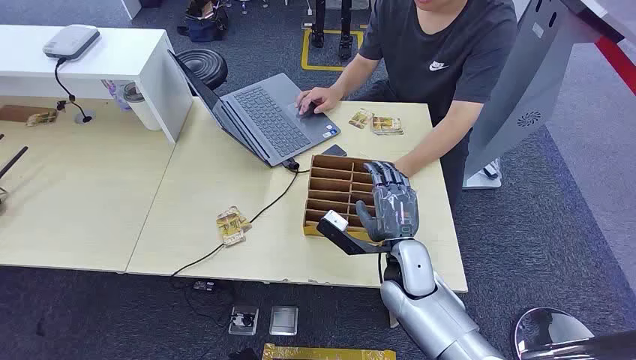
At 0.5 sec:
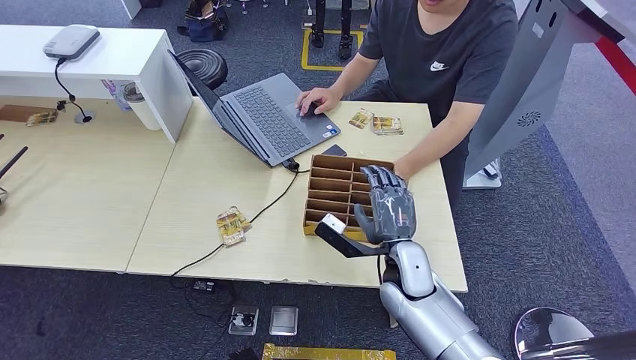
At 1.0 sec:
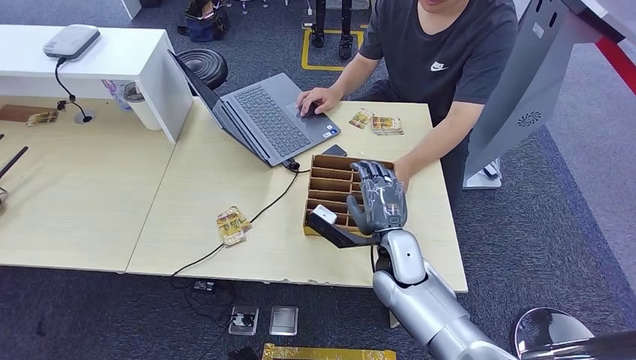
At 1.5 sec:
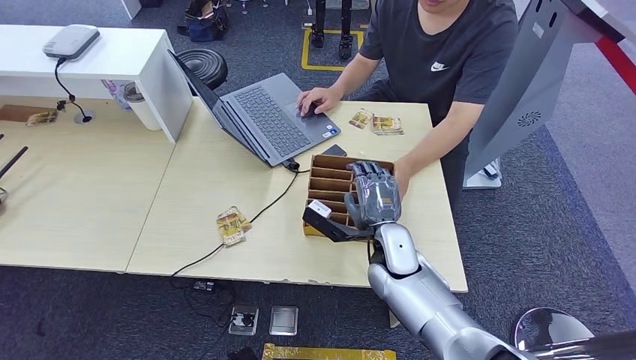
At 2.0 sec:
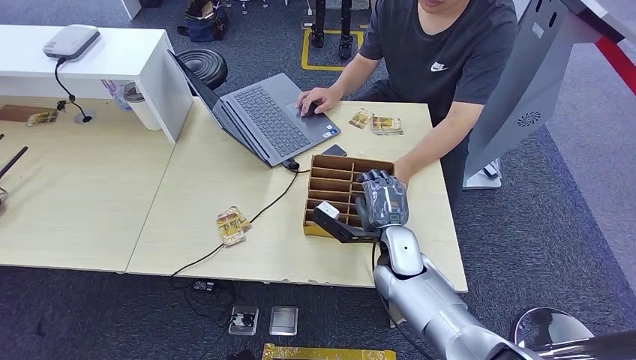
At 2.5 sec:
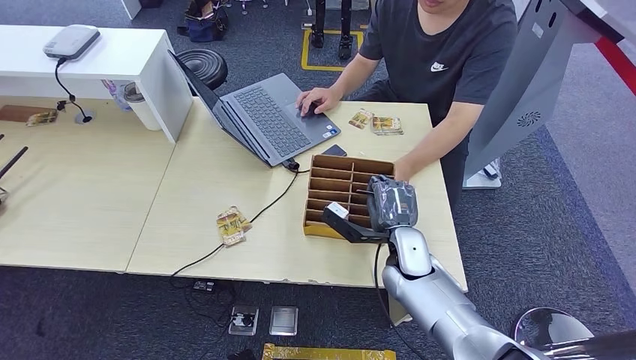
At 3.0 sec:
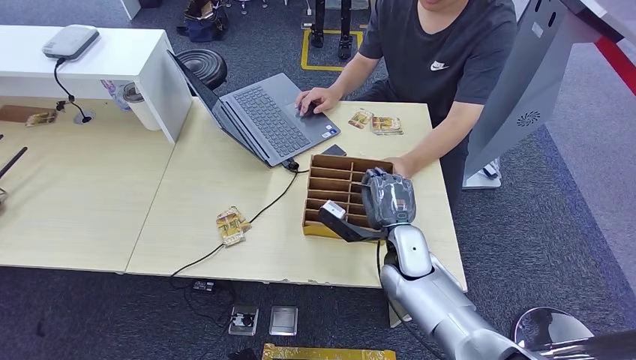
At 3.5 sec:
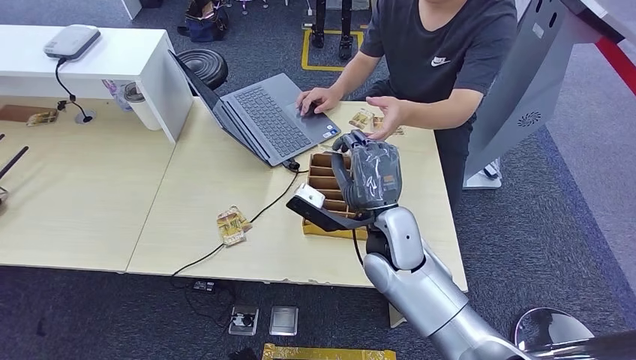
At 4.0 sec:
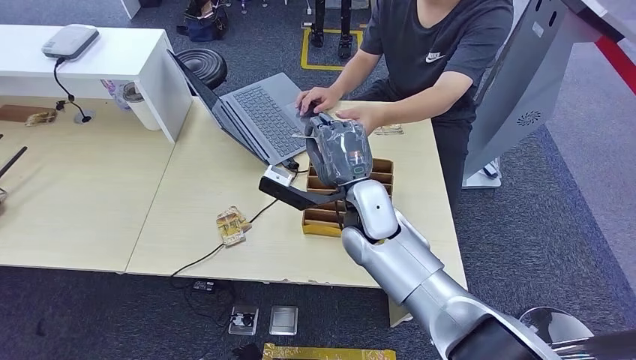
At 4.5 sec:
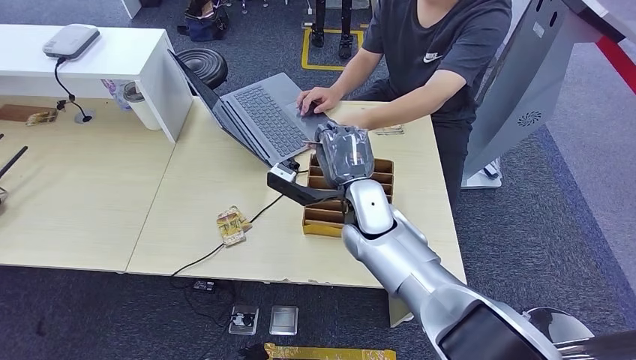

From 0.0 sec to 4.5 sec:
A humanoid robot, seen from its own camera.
Step, from 0.0 sec to 2.5 sec: Pick up the key card from the card box.
Step, from 3.0 sec to 4.5 sec: Hand the key card to the target.
From 2.0 sec to 4.5 sec: The right hand moves upward and to the left, some 10 cm.

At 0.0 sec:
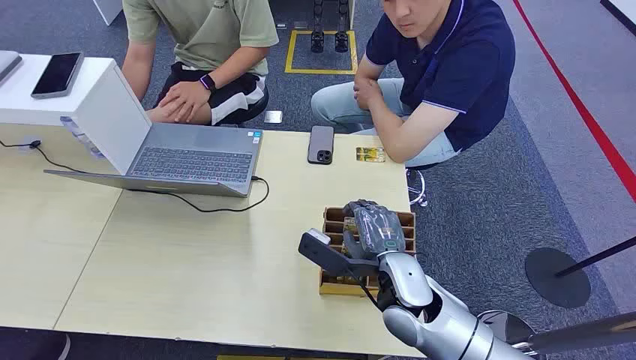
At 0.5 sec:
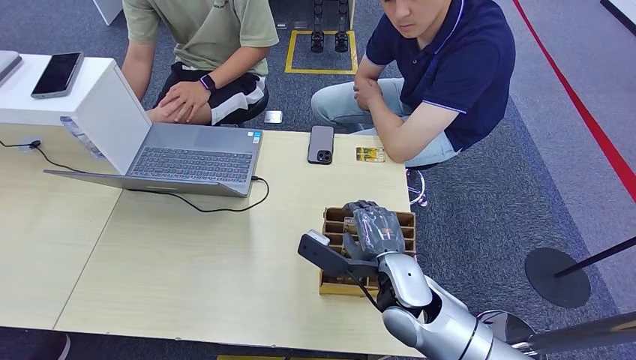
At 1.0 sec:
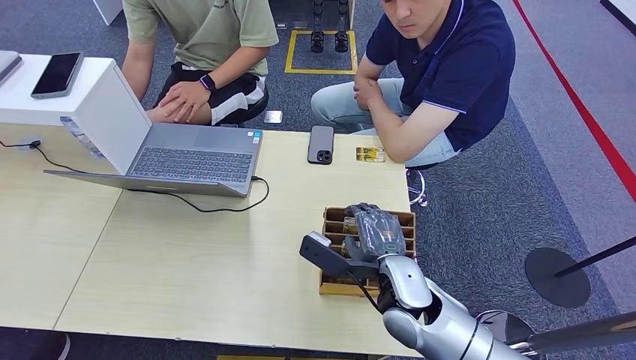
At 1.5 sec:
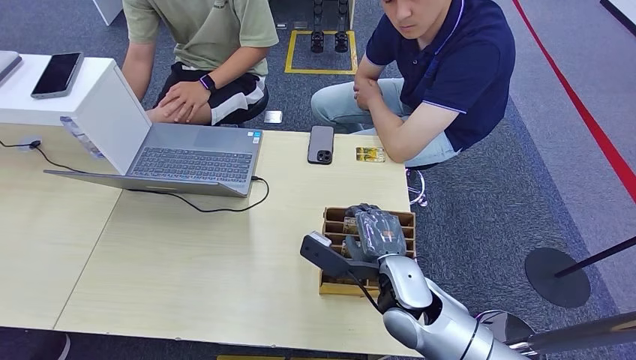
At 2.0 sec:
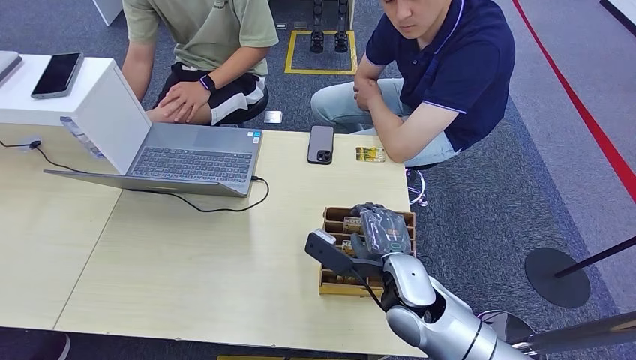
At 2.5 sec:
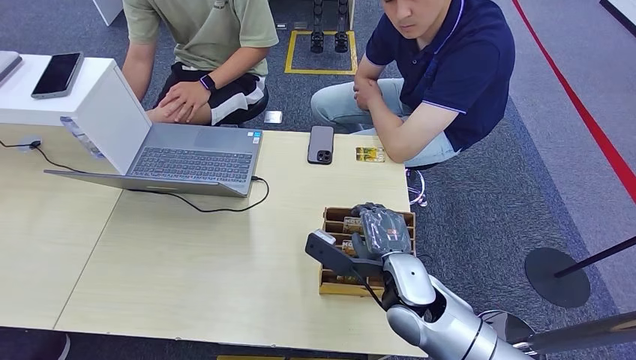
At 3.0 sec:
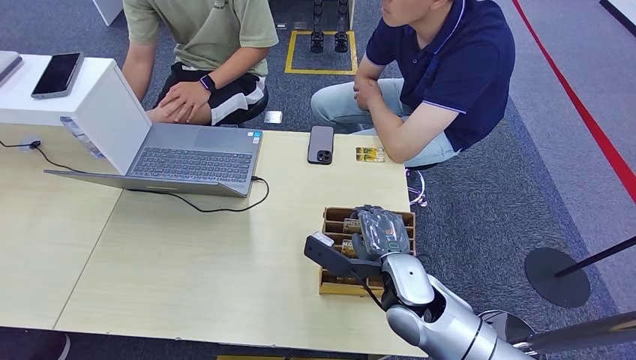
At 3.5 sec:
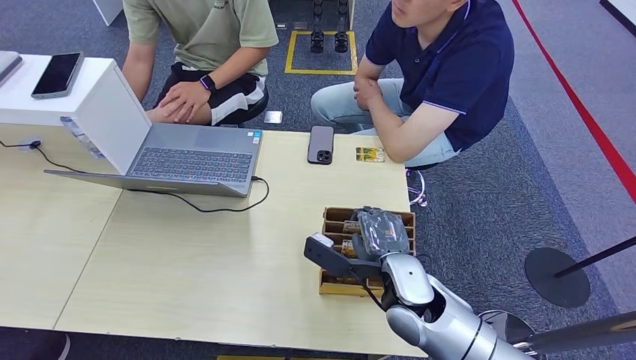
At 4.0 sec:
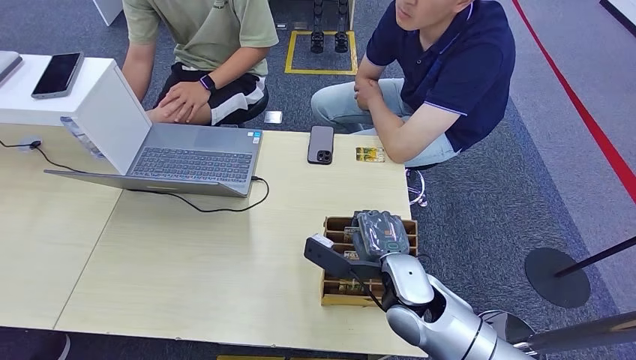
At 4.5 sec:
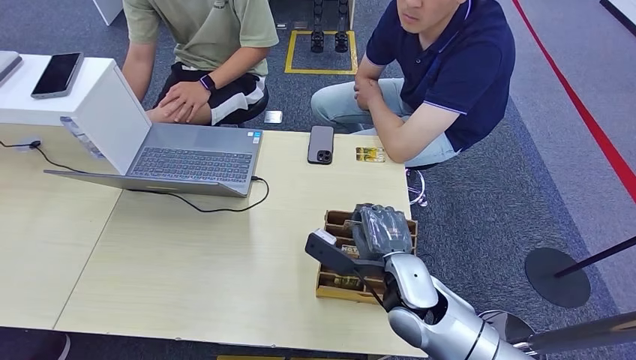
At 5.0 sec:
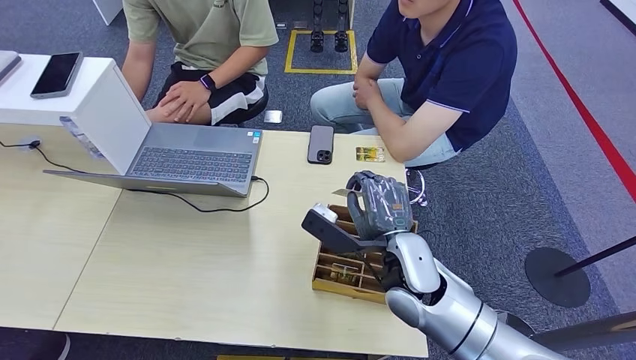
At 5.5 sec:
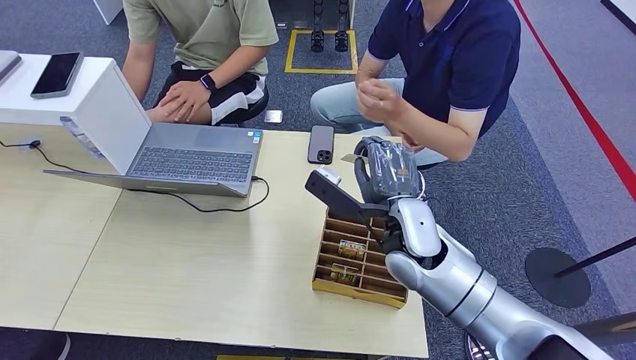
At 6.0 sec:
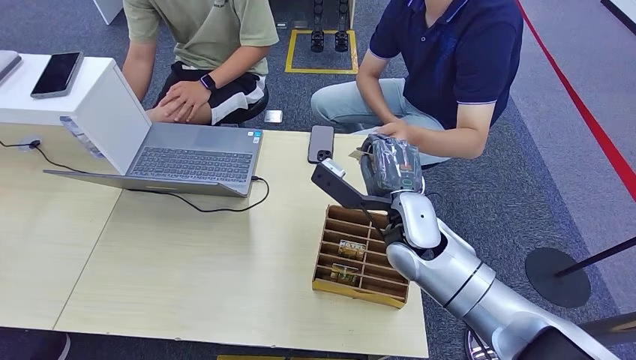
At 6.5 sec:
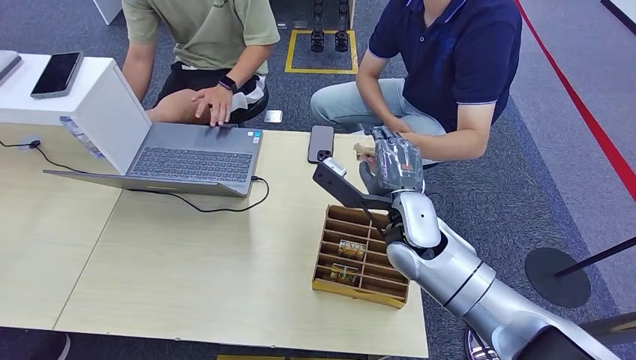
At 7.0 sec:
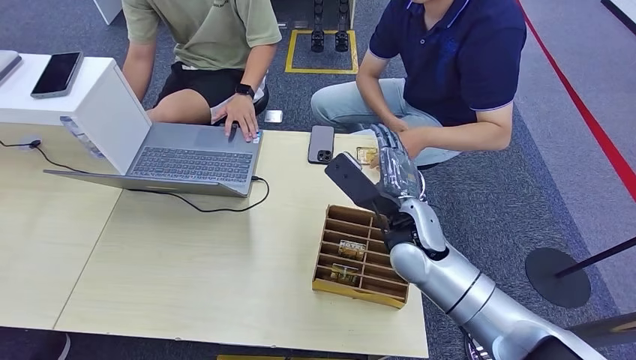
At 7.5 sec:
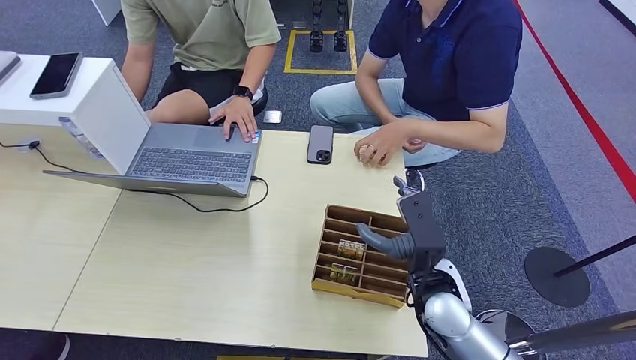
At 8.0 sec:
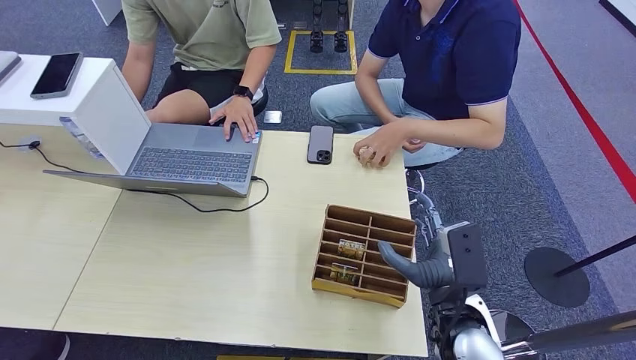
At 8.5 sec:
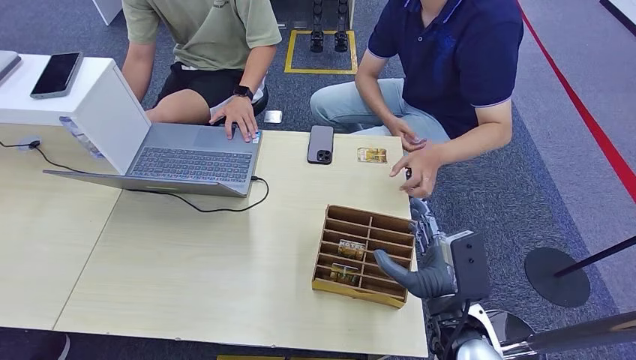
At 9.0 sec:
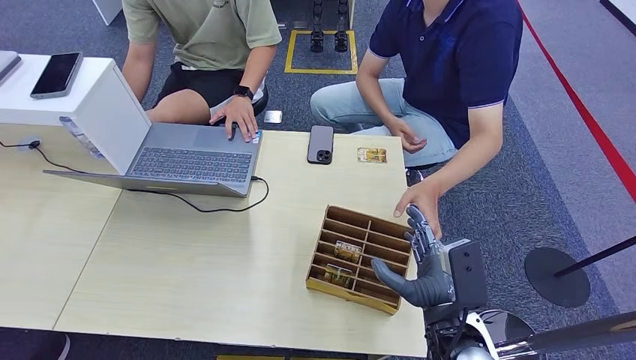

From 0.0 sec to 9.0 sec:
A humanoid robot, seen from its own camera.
Step, from 0.0 sec to 4.5 sec: Pick up the key card from the card box.
Step, from 5.0 sec to 9.0 sec: Hand the key card to the target.
From 2.0 sec to 4.5 sec: There are only small adjustments of the hands.
From 4.5 sec to 7.0 sec: The right hand travels forward by roughly 10 cm.
From 7.0 sec to 9.0 sec: The right hand goes some 15 cm backward.

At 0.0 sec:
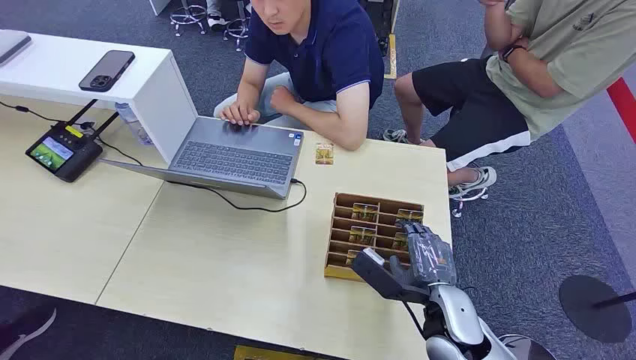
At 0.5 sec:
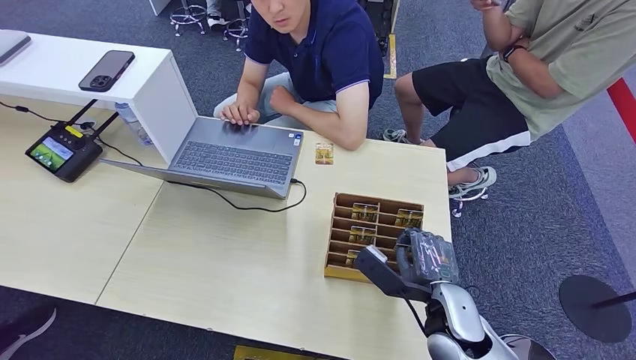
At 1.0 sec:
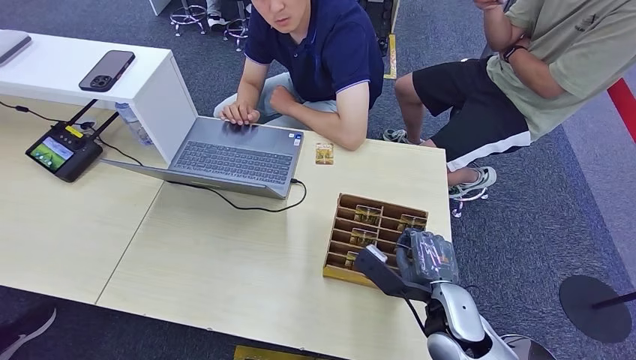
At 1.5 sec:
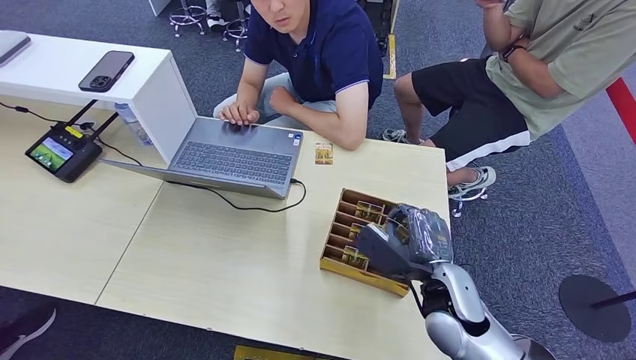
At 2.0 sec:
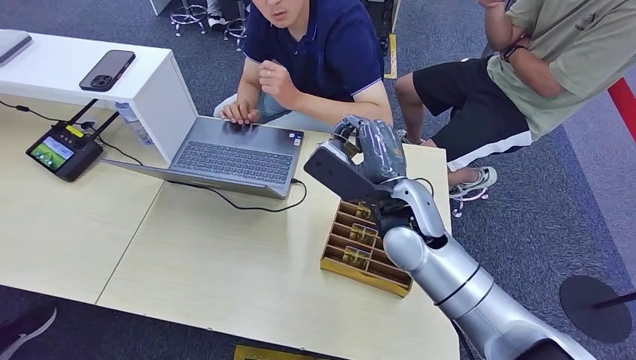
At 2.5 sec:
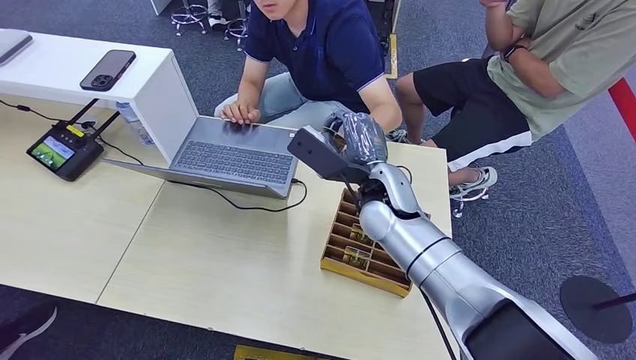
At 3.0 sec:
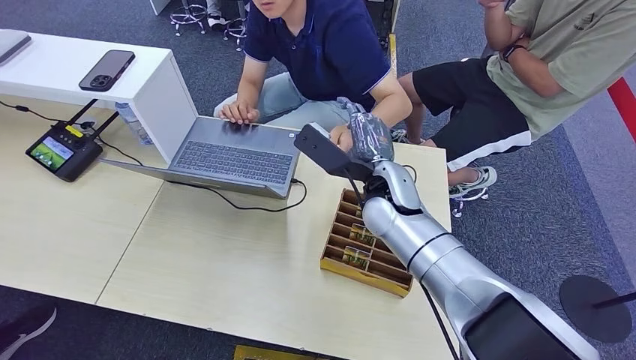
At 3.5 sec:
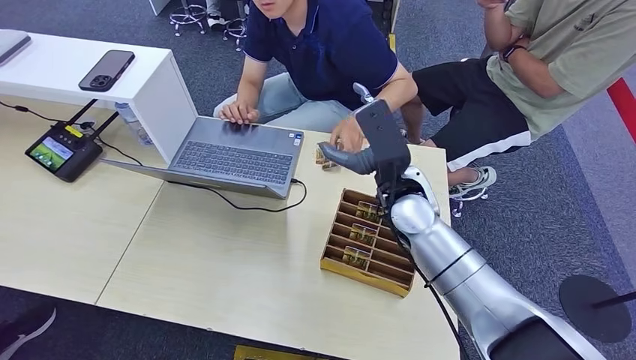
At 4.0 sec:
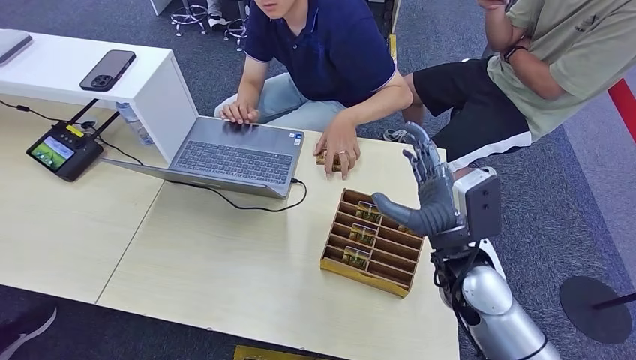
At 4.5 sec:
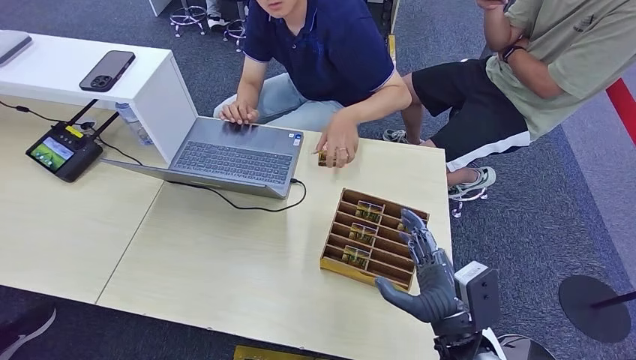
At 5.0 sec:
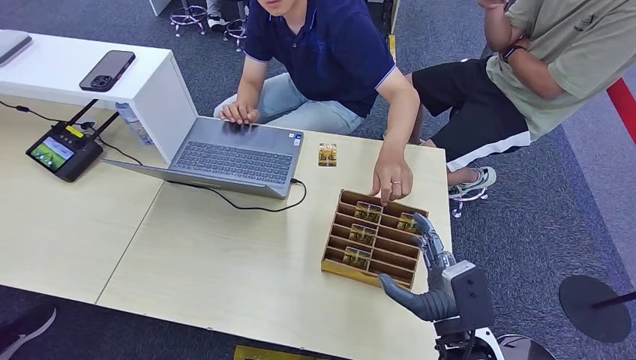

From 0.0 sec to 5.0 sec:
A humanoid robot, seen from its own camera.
Step, from 0.0 sec to 1.5 sec: Pick up the key card from the card box.
Step, from 2.0 sec to 5.0 sec: Hand the key card to the target.
From 2.5 sec to 5.0 sec: The right hand shifts roughly 25 cm backward, to the right and downward.
